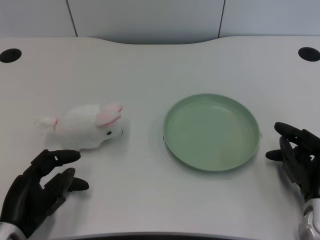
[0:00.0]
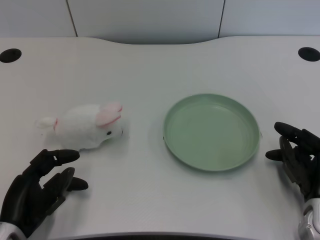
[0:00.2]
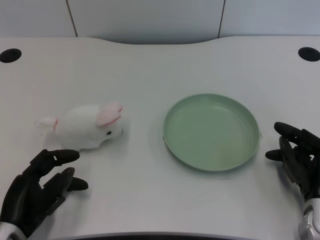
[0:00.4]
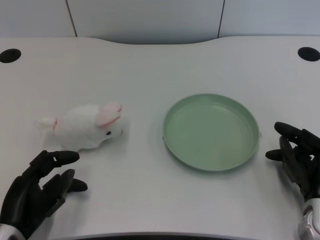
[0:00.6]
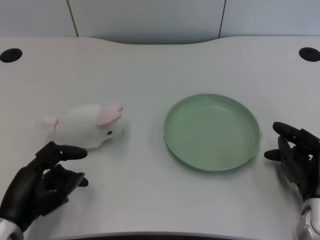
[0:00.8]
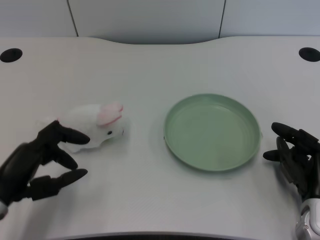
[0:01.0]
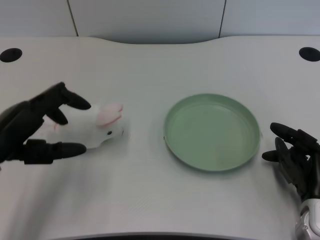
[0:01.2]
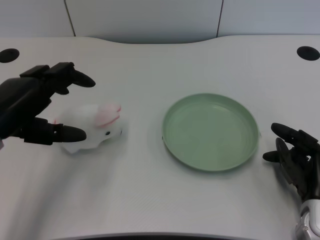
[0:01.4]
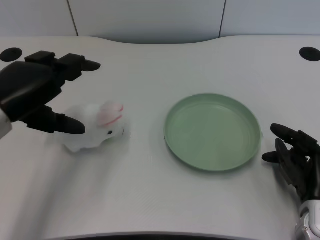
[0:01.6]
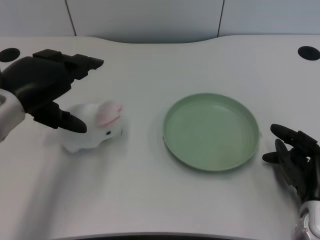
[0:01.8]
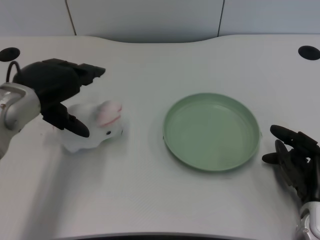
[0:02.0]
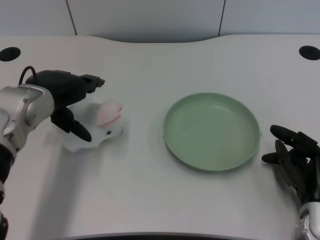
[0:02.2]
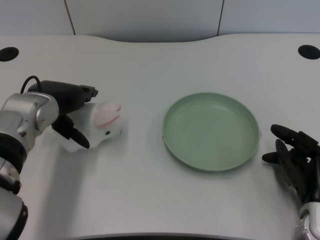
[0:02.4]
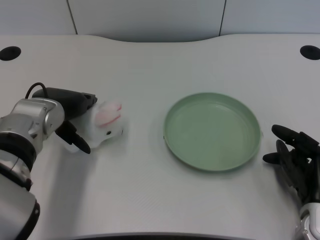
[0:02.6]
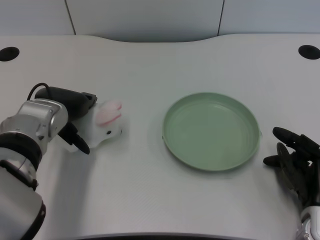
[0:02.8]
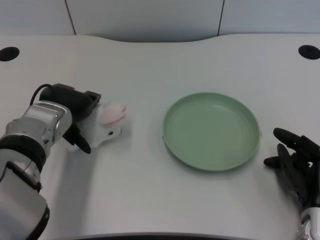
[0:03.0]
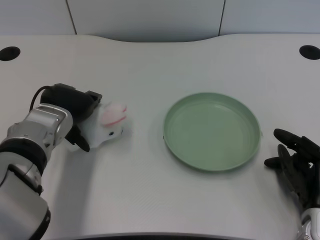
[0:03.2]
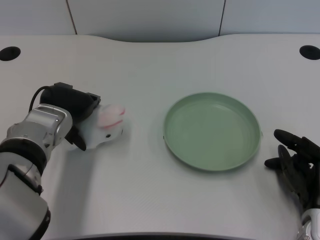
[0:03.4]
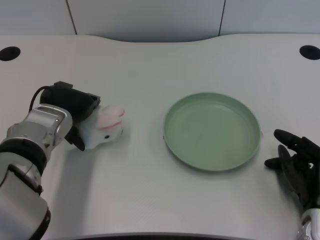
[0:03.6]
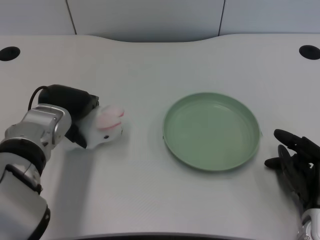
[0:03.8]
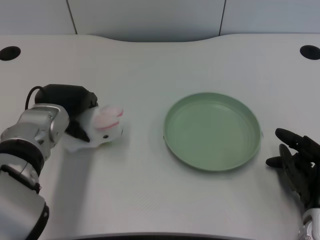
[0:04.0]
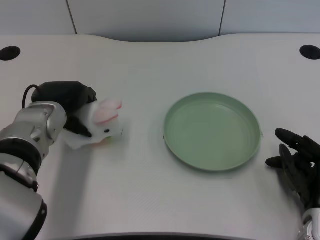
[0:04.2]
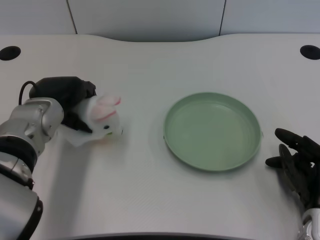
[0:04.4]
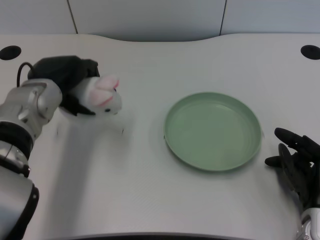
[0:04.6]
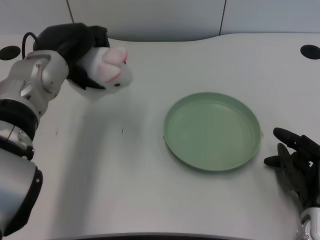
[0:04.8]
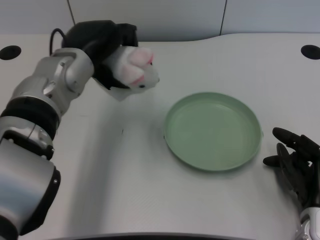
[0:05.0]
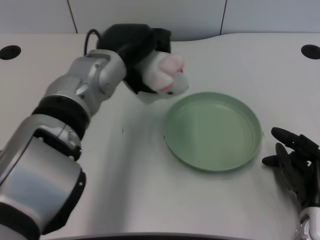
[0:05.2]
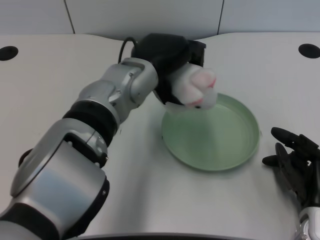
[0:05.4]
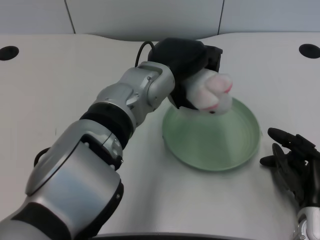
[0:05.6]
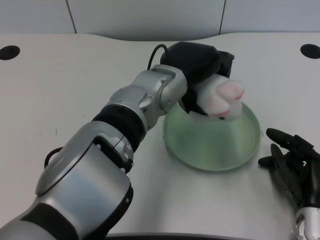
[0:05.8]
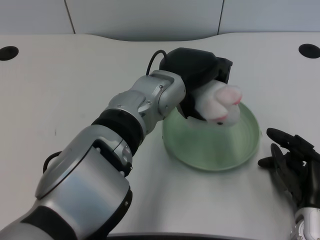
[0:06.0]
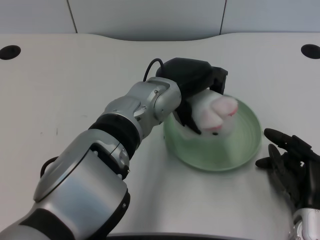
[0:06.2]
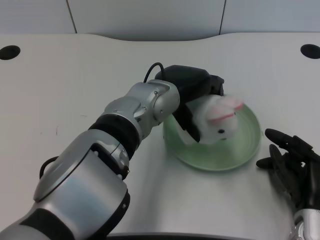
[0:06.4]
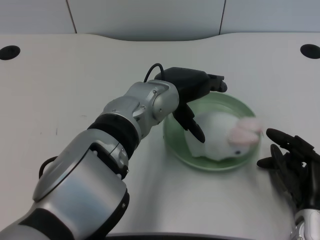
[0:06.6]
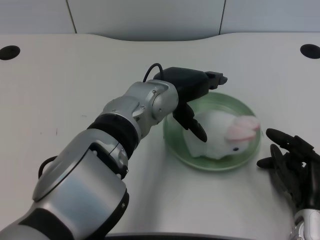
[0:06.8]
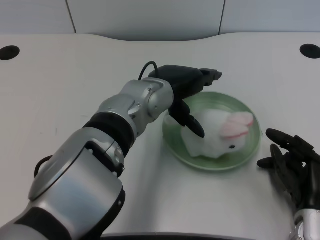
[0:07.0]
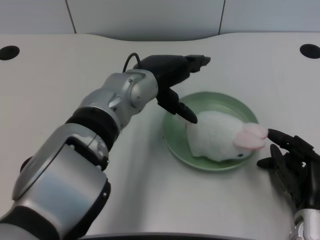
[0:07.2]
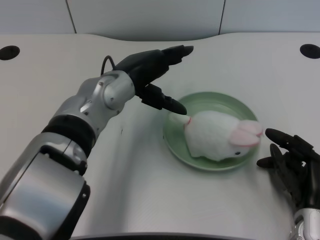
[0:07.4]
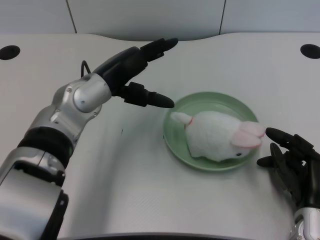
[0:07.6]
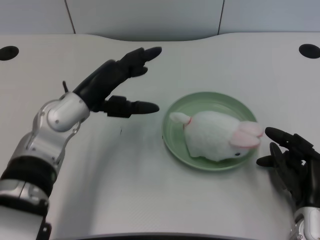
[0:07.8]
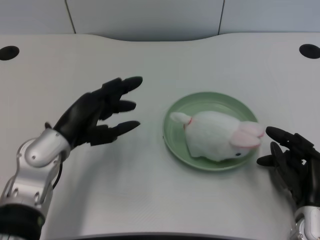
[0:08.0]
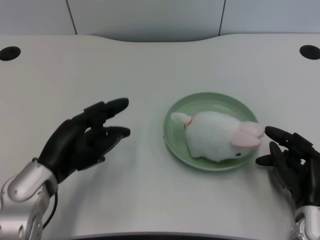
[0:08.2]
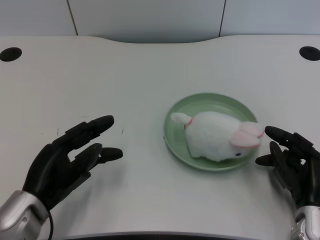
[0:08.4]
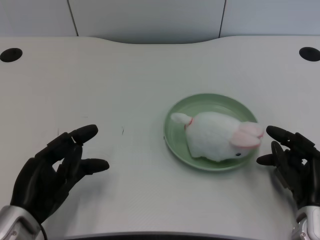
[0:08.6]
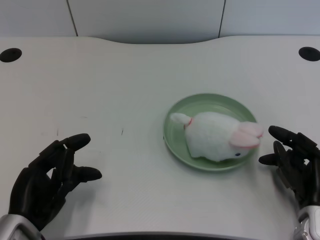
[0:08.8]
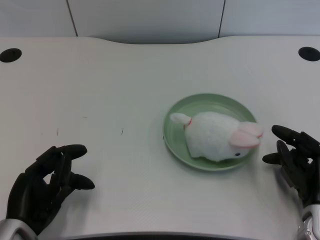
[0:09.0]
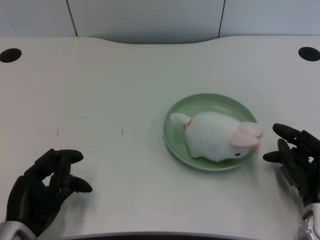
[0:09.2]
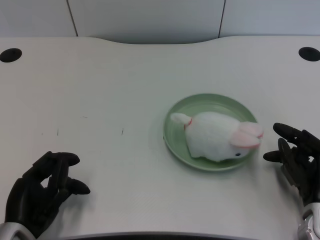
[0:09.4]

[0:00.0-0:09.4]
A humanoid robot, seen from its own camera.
Task of the whole recording: pick up the rabbit doll from the table and place it on the plate.
Step, 0.8 to 4.4 s: Grasp the rabbit doll with the left gripper.
Step, 4.6 to 6.6 s: Place the rabbit doll into the plate with the left gripper.
1.6 to 3.2 s: The left hand heads downward, to the right and forward, covering some 10 cm.
3.2 to 4.8 s: The left hand heads upward, covering approximately 10 cm.
4.8 to 6.2 s: The left hand moves to the right, approximately 15 cm.
6.2 to 7.8 s: The left hand shifts approximately 15 cm to the left.
7.8 to 9.4 s: The left hand goes about 20 cm backward, downward and to the left.

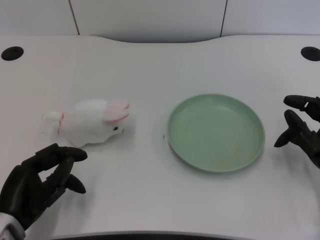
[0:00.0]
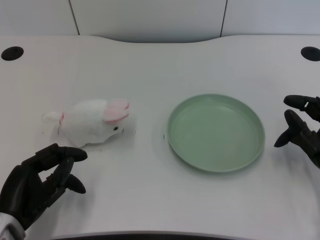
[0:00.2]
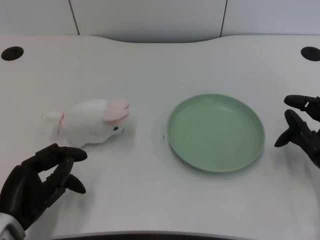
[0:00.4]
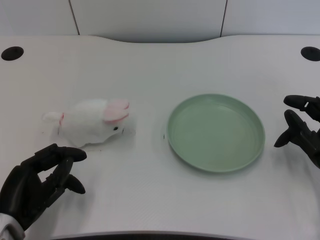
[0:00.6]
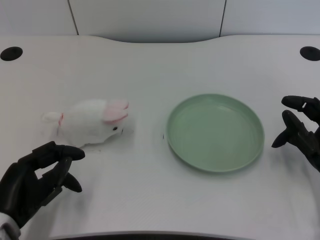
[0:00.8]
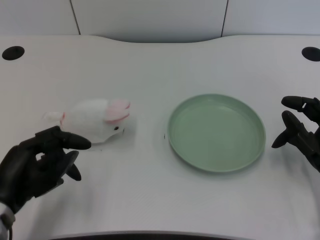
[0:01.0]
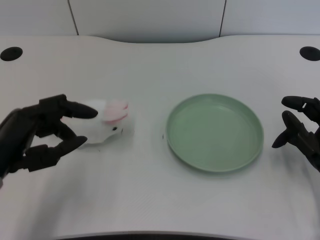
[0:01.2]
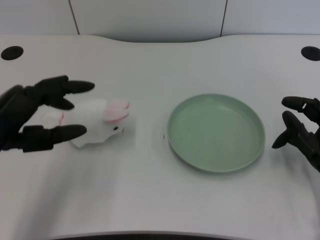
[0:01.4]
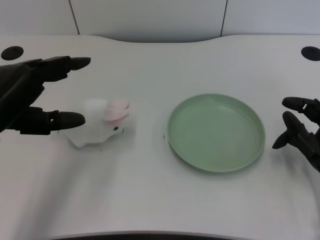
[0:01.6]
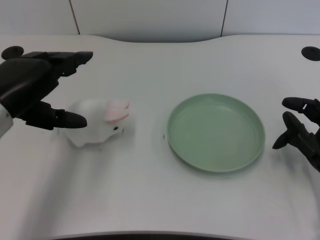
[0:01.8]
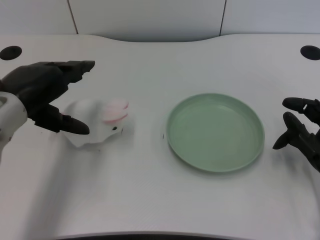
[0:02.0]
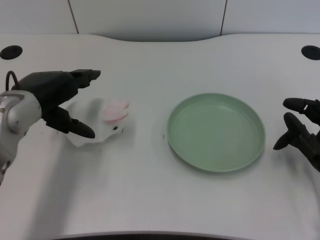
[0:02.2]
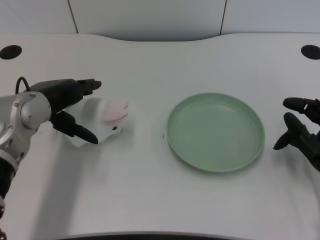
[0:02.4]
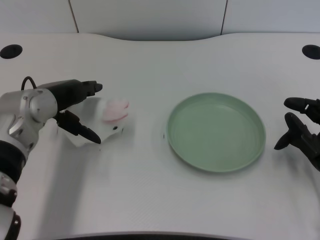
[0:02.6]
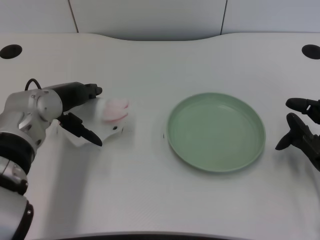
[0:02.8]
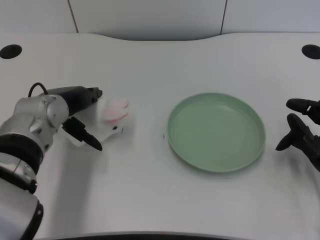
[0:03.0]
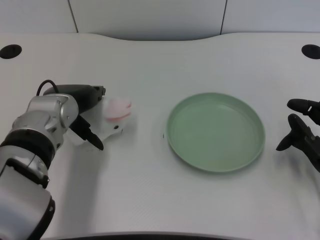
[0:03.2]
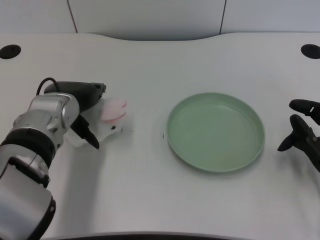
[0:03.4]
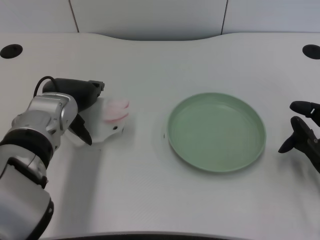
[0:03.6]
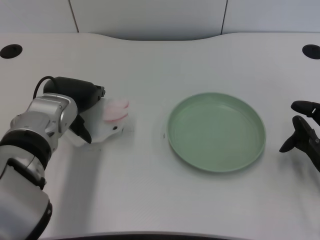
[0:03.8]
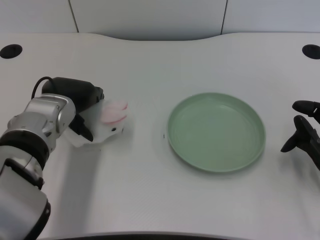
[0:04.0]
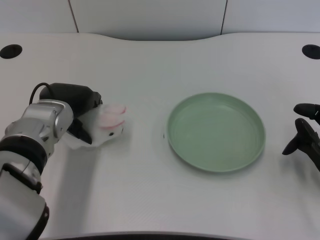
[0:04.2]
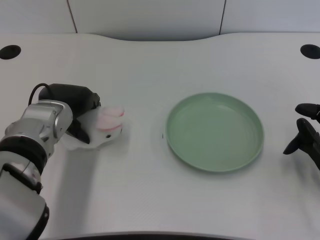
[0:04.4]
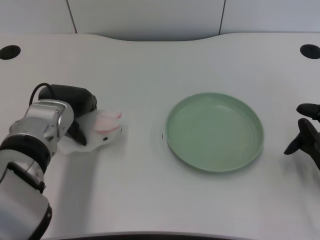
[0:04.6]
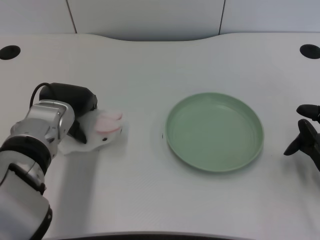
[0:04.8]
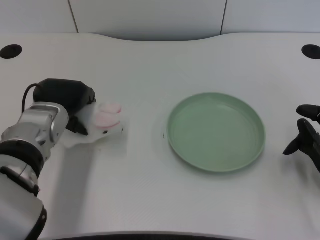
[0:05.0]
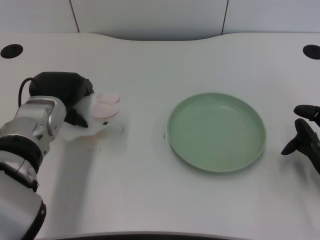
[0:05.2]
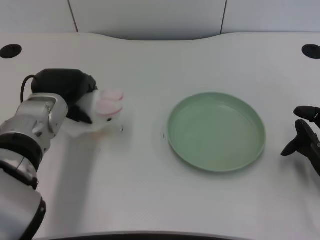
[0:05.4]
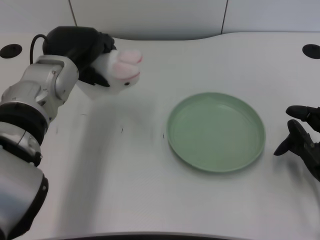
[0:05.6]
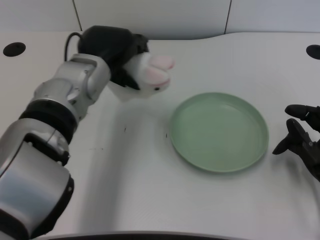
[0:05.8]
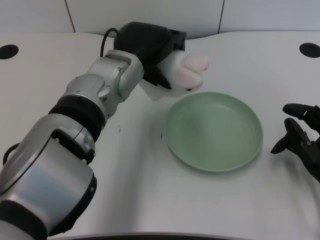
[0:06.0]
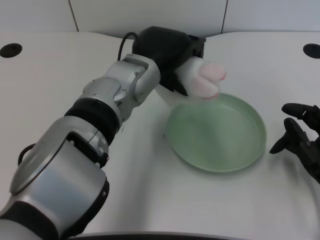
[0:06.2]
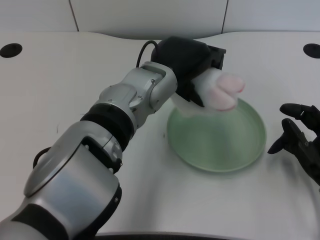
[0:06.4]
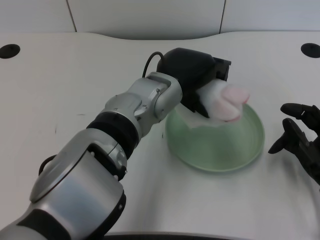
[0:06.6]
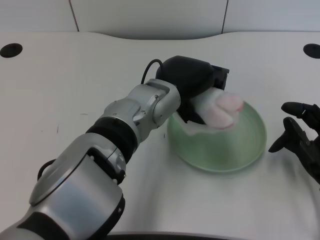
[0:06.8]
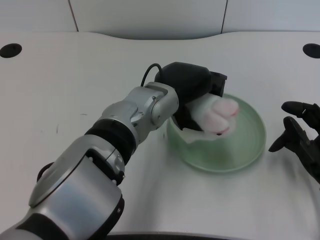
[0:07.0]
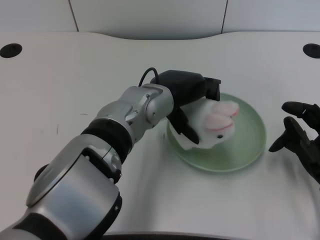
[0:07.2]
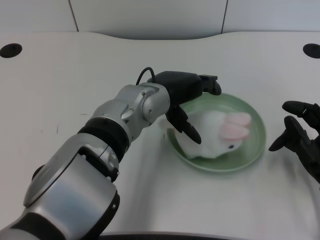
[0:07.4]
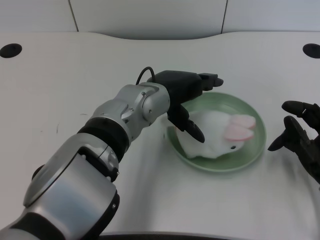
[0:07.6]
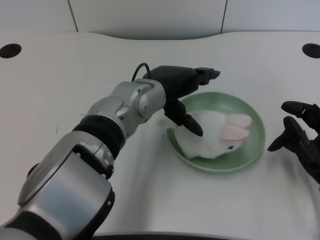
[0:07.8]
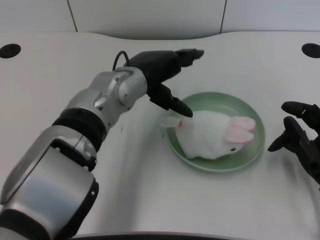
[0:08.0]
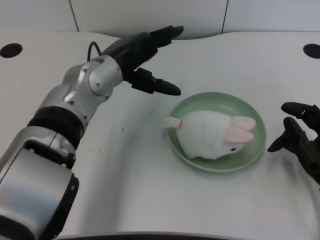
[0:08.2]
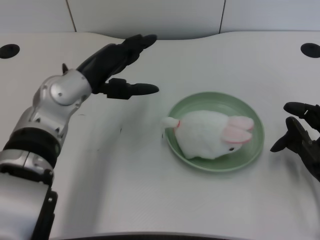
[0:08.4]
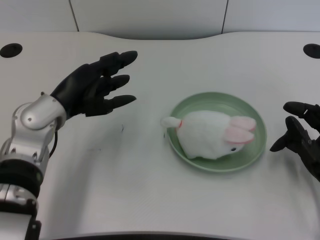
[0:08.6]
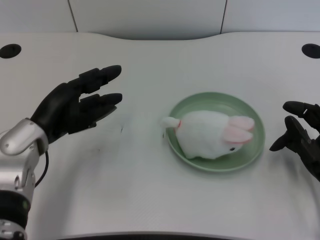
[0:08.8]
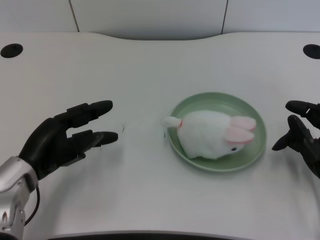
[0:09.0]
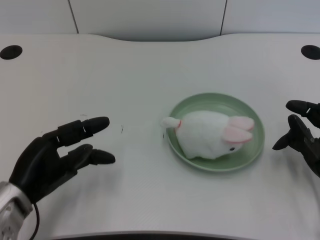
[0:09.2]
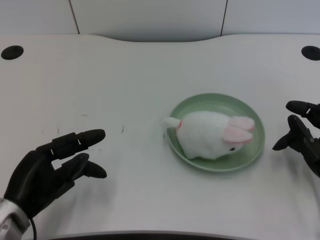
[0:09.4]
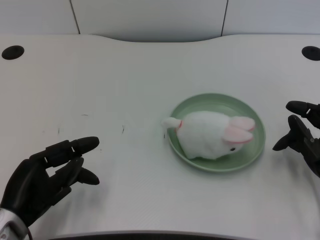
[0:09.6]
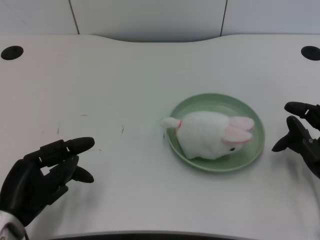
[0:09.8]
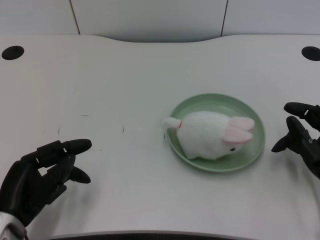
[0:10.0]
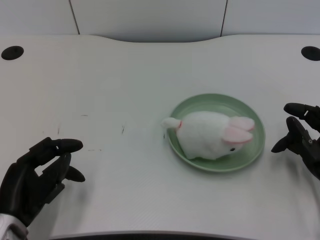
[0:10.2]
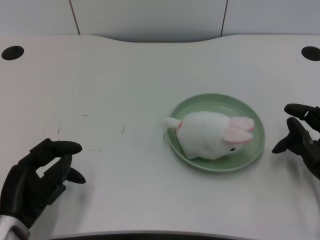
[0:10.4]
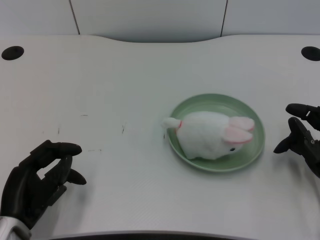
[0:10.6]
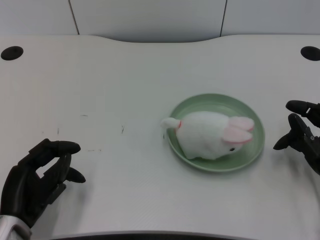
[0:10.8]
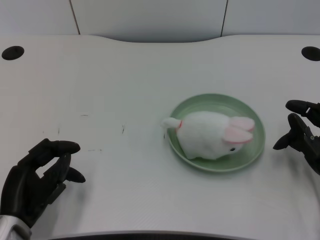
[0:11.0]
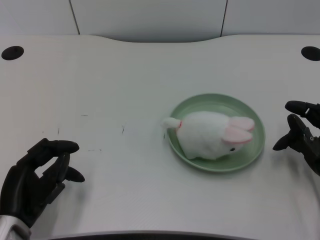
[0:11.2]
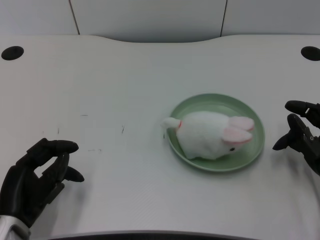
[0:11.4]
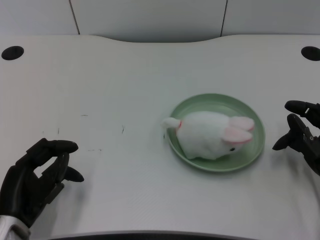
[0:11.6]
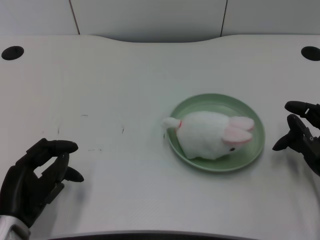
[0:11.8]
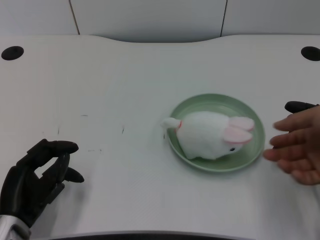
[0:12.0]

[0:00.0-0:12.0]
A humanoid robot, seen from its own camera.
Task of the whole recording: pick up the rabbit doll from the table and place it on the plate.
Step, 1.0 to 5.0 s: Grasp the rabbit doll with the left gripper.
Step, 5.2 to 7.4 s: Place the rabbit doll into the plate with the left gripper.
1.6 to 3.0 s: The left hand moves forward, to the right and downward, roughly 15 cm.
3.0 to 4.4 s: The hands make only small movements.
4.4 to 6.0 s: The left hand heads to the right and upward, covering roughly 10 cm.
7.6 to 9.0 s: The left hand moves to the left and downward, about 20 cm.
9.0 to 10.4 s: The left hand heads backward, covering about 5 cm.
10.4 to 12.0 s: Both hands stay about where they are.

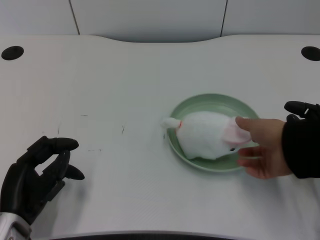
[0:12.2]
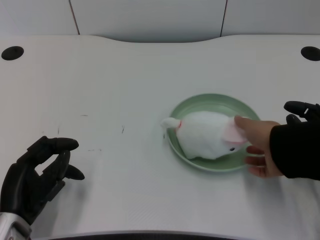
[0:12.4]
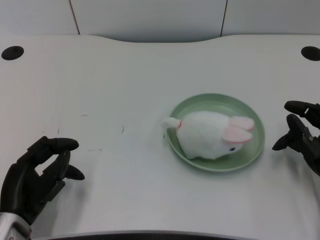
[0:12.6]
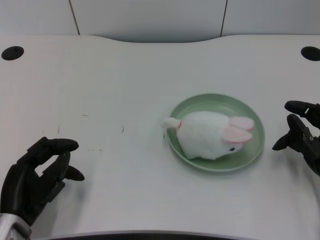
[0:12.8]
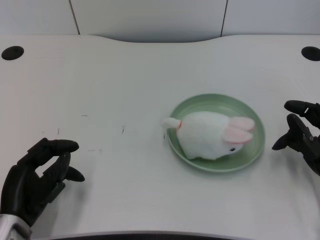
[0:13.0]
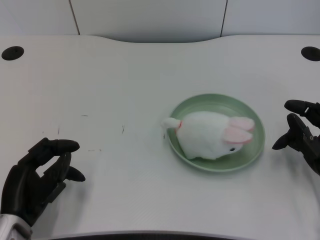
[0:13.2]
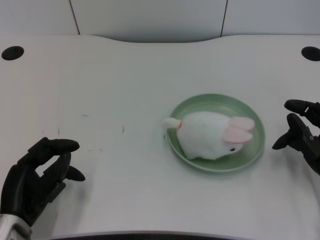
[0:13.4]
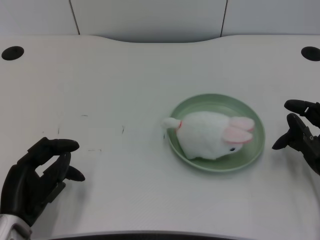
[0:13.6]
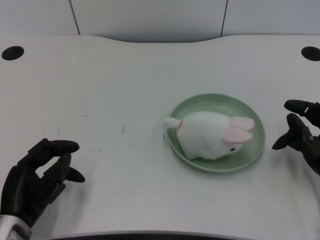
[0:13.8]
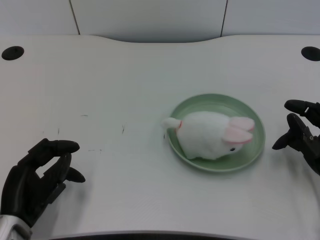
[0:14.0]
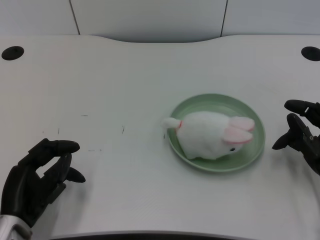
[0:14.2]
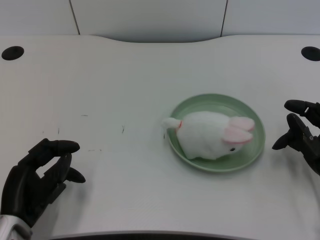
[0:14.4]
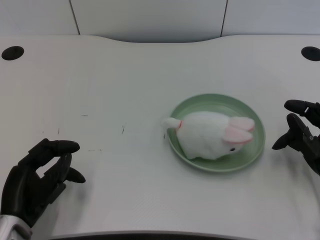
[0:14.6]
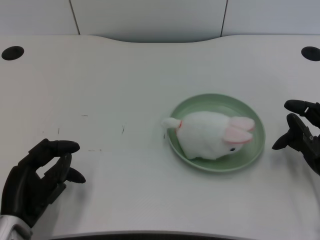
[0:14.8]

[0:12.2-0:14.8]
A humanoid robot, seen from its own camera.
Task of the whole recording: pick up the rabbit doll from the table and place it on the plate.
12.2 to 14.8 s: Neither hand changes place.
